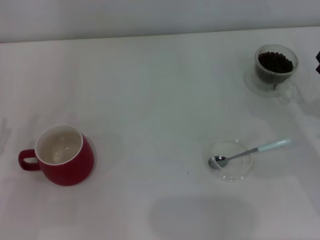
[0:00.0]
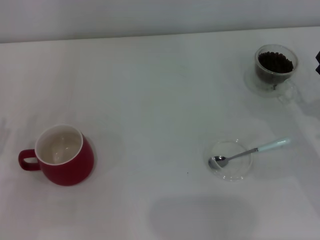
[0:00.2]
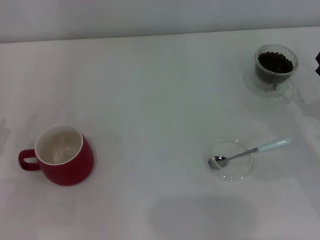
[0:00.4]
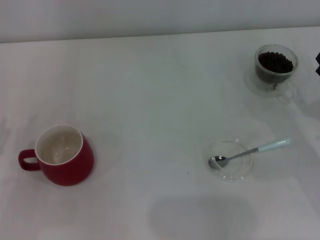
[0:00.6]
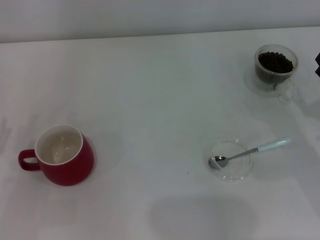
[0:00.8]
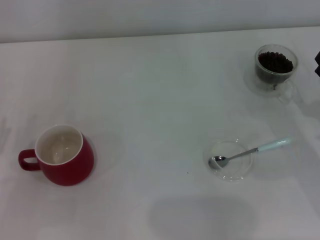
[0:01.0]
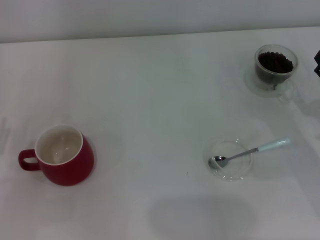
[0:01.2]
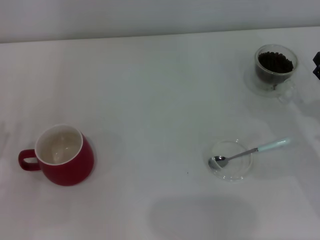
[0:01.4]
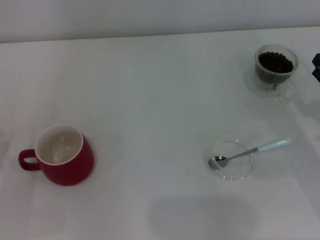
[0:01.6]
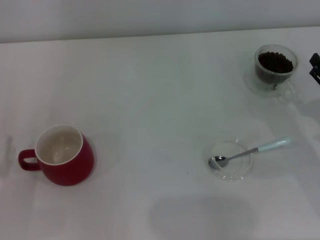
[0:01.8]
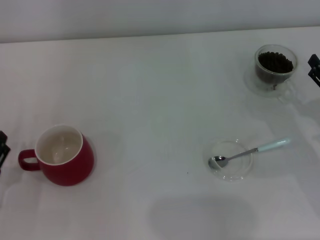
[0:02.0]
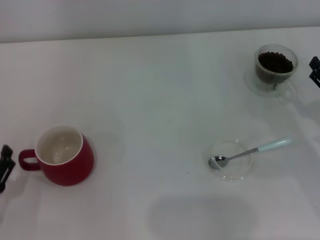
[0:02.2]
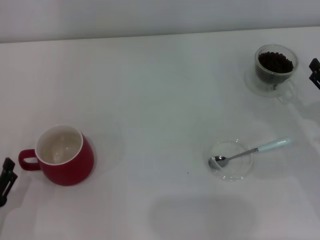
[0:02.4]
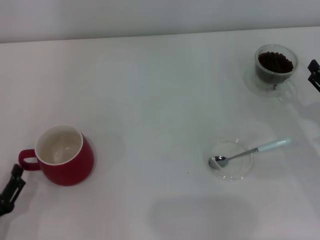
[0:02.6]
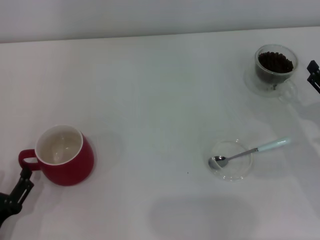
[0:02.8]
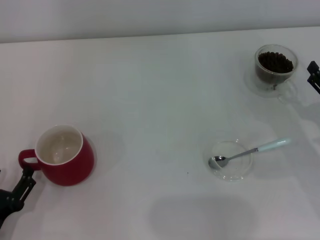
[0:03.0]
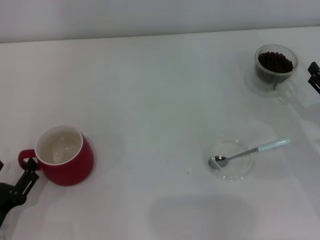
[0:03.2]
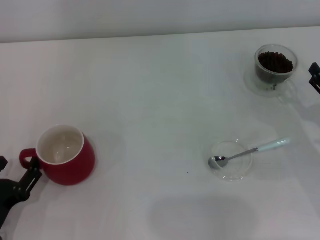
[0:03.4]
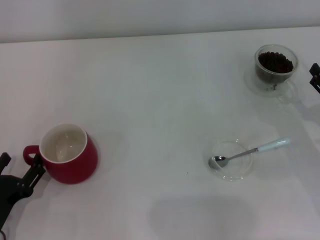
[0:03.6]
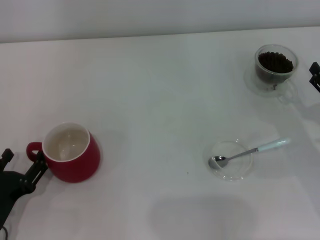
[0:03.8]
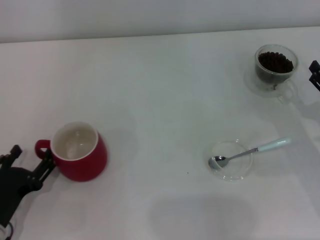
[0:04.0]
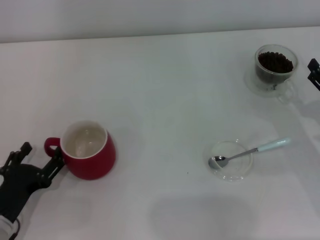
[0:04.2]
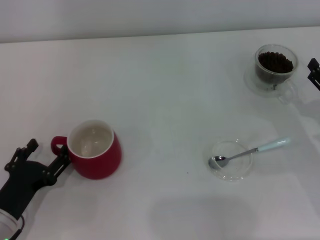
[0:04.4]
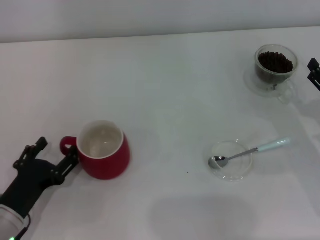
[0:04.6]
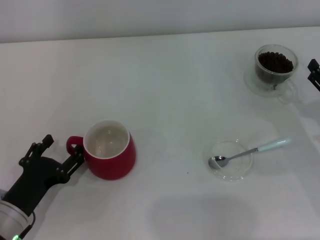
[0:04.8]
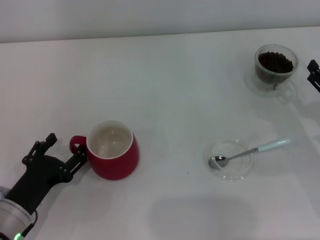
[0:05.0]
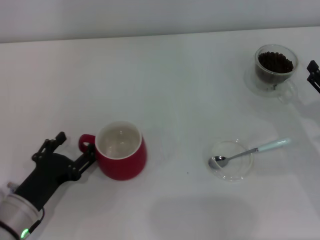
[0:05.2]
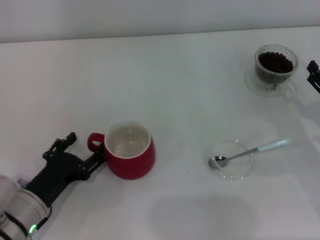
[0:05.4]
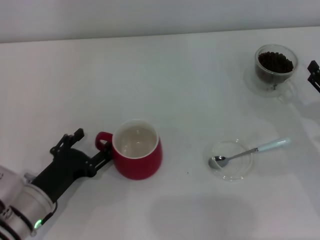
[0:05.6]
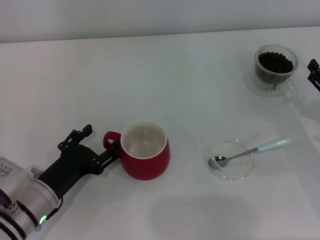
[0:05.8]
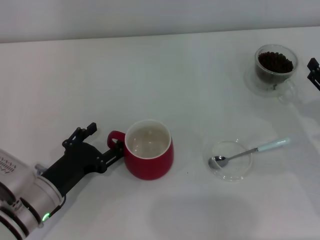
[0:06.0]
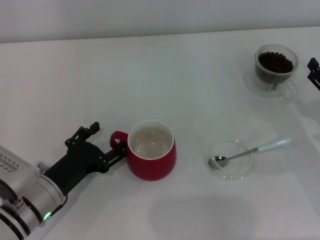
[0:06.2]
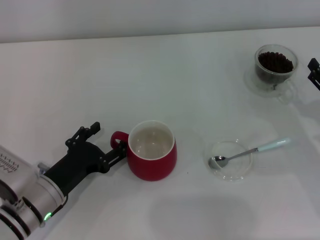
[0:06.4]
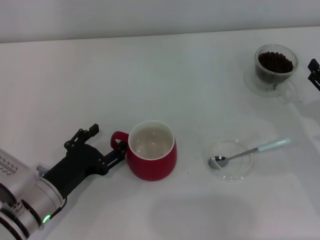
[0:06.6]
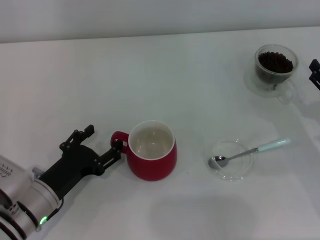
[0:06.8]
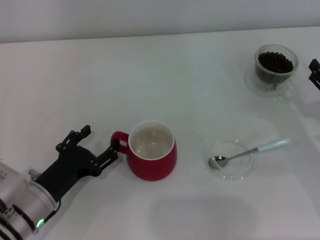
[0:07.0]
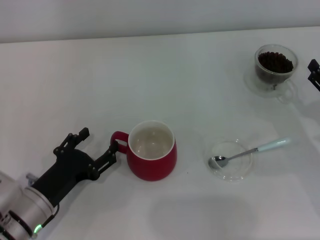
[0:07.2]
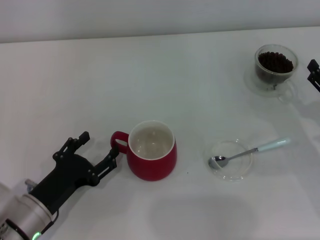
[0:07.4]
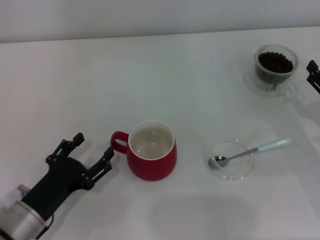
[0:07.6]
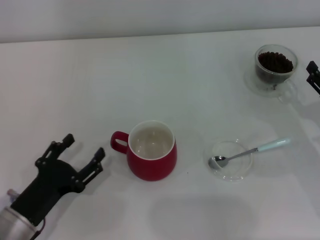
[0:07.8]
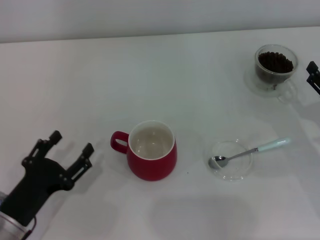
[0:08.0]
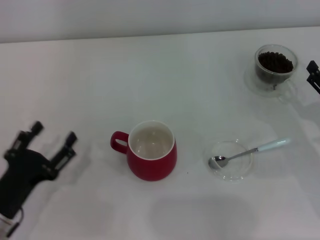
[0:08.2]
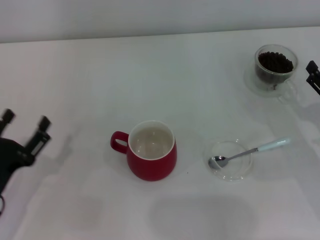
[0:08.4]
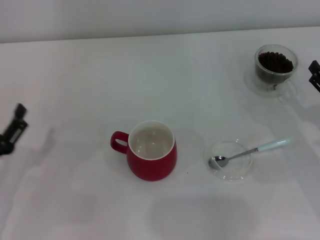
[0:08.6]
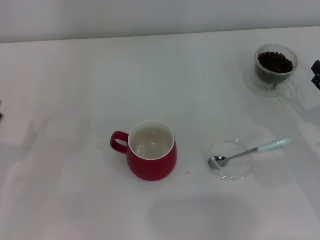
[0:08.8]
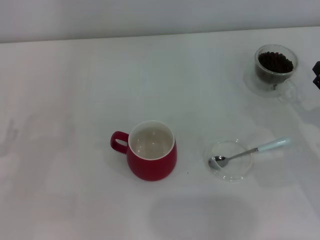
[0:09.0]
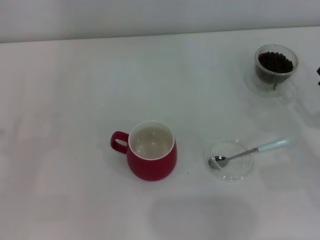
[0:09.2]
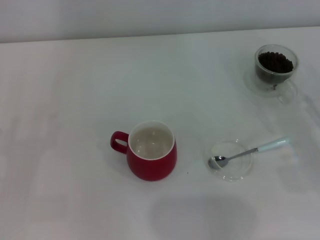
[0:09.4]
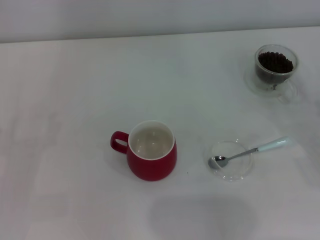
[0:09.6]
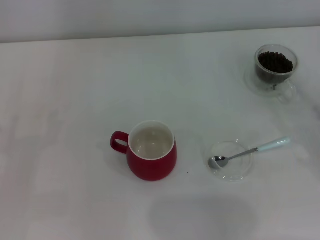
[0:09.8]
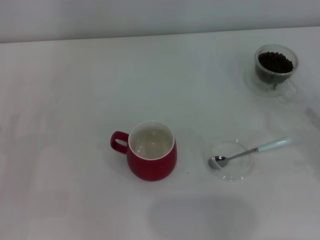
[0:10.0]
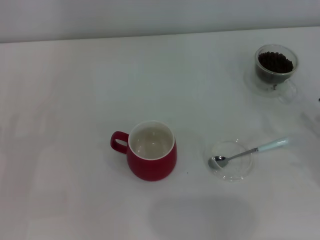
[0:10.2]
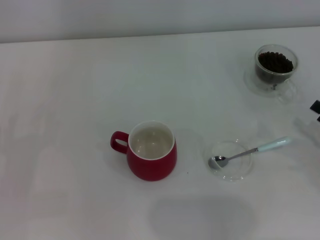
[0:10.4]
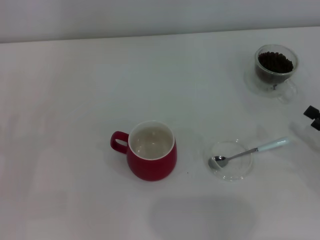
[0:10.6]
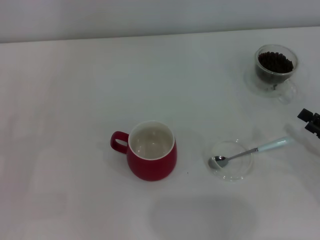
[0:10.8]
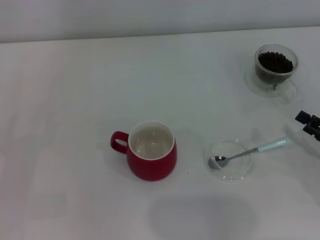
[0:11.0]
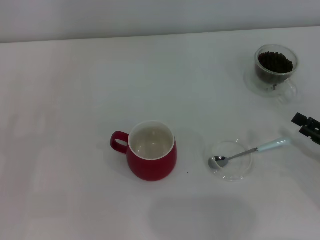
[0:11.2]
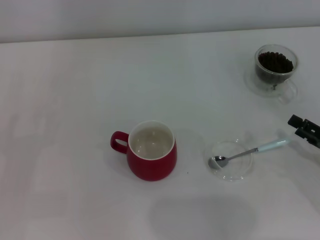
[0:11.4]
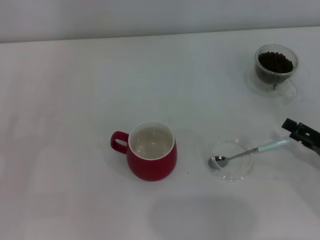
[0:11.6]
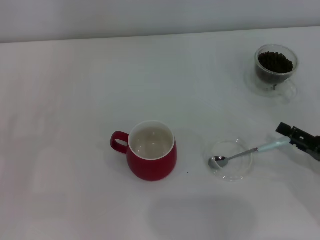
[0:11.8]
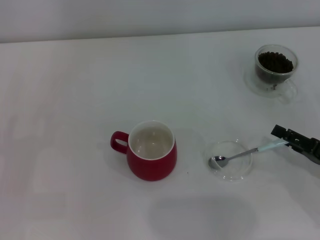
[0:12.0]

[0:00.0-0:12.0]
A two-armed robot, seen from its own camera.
Task of the whole recording: Use a blue spoon to take out the coffee beans from the glass and pour them into the red cup.
Step, 0:00.0 to 0:07.4: Move the cup to the center of view with the left gripper.
0:01.6 to 0:03.0: The left gripper goes roughly 5 cm backward.
0:03.0 to 0:04.4: The left gripper goes about 5 cm forward.
0:04.4 to 0:06.0: The left gripper shifts approximately 5 cm to the right.
0:06.0 to 0:07.6: The grippers stay close to where they were, moving slightly.
0:07.6 to 0:09.0: The left gripper travels to the left by about 10 cm.
0:09.0 to 0:10.4: The right gripper ends up approximately 5 cm from where it was.
0:10.4 to 0:12.0: There are only small adjustments of the grippers.

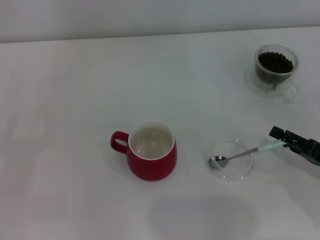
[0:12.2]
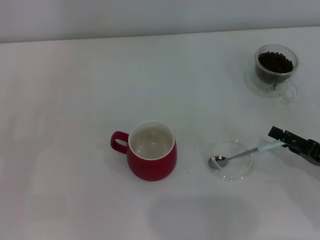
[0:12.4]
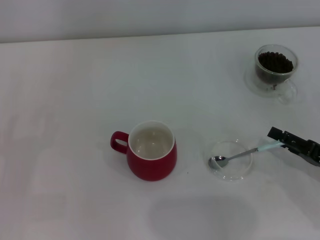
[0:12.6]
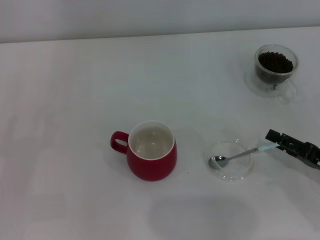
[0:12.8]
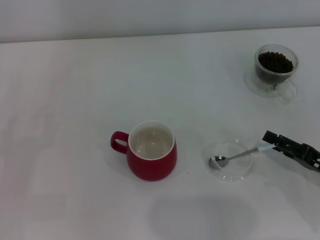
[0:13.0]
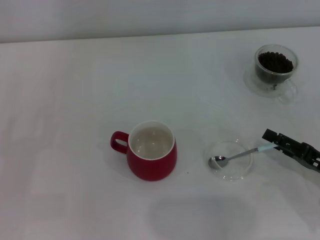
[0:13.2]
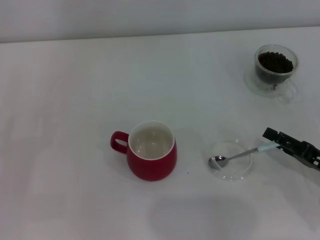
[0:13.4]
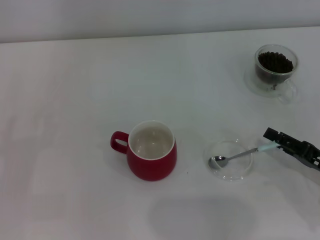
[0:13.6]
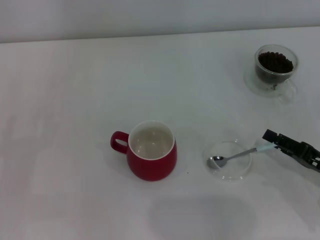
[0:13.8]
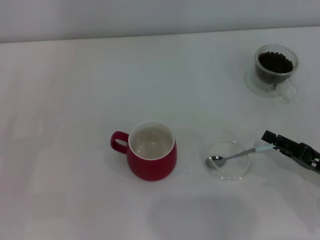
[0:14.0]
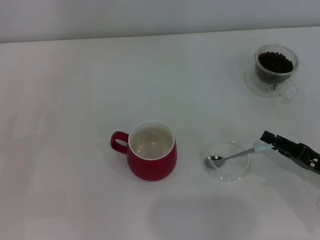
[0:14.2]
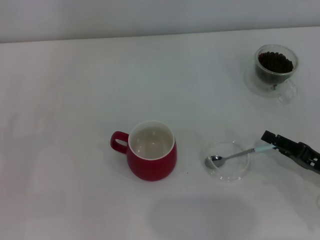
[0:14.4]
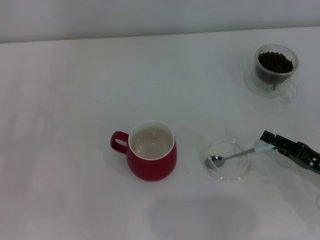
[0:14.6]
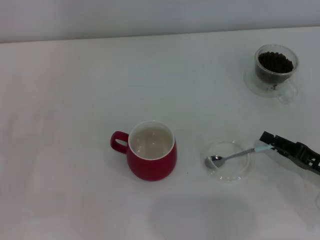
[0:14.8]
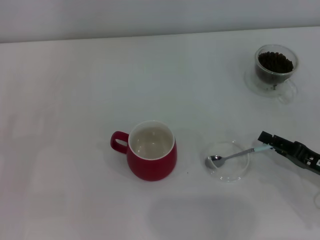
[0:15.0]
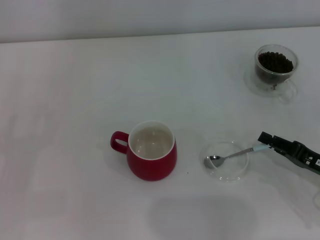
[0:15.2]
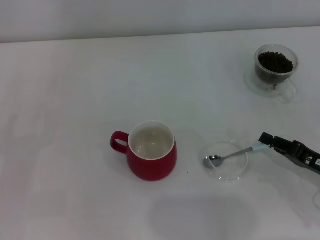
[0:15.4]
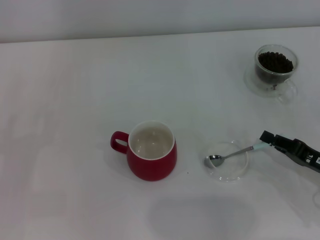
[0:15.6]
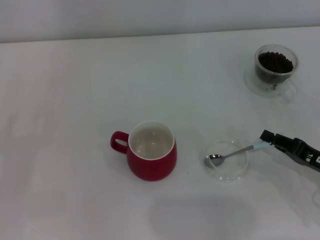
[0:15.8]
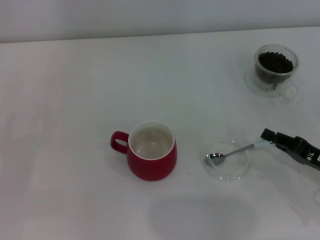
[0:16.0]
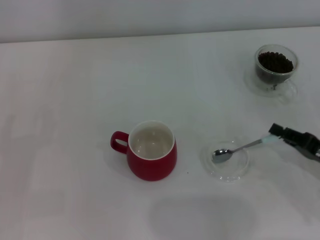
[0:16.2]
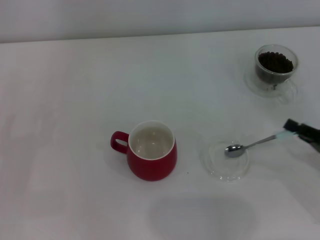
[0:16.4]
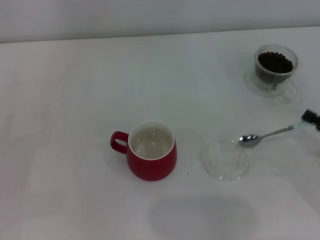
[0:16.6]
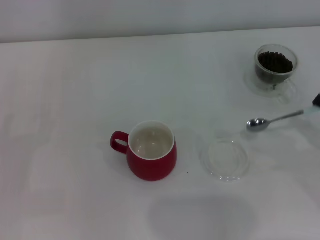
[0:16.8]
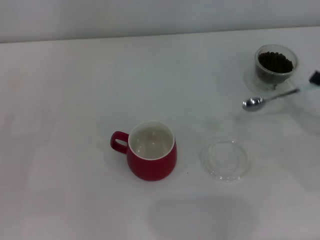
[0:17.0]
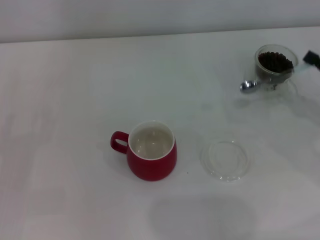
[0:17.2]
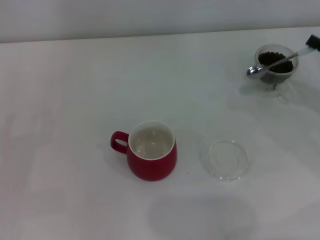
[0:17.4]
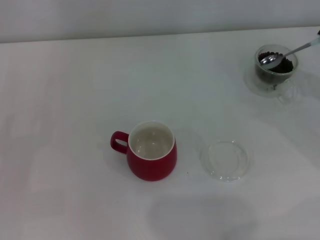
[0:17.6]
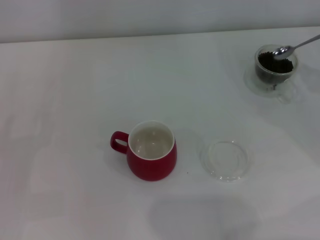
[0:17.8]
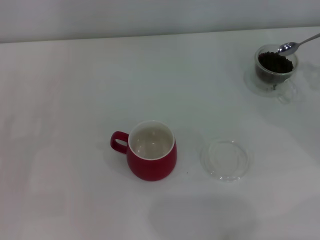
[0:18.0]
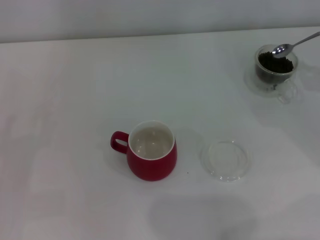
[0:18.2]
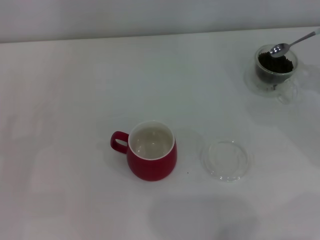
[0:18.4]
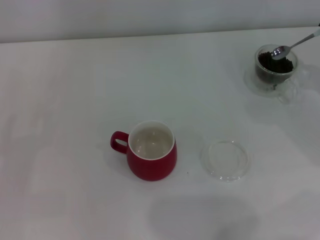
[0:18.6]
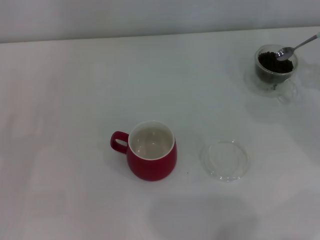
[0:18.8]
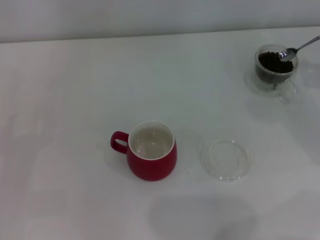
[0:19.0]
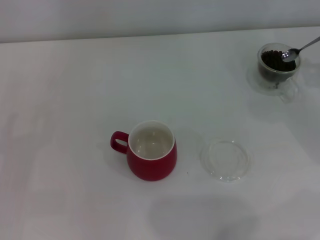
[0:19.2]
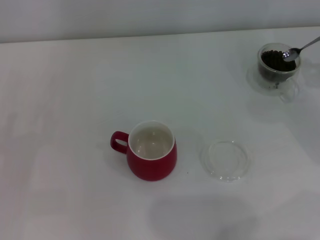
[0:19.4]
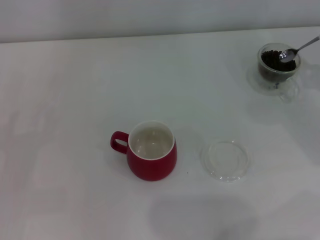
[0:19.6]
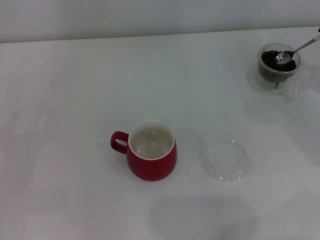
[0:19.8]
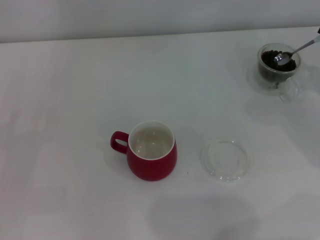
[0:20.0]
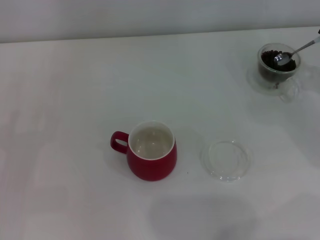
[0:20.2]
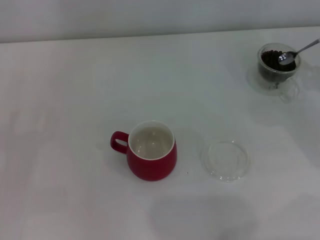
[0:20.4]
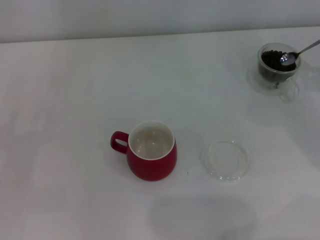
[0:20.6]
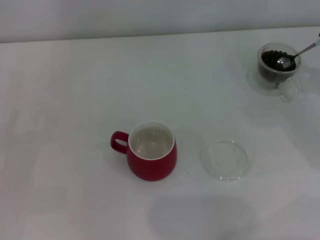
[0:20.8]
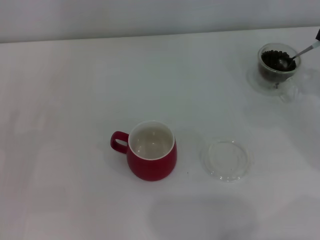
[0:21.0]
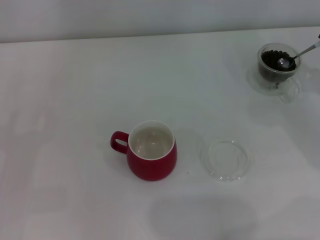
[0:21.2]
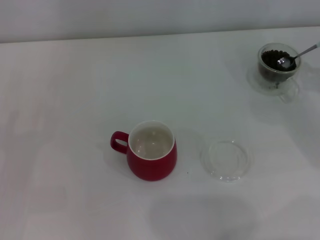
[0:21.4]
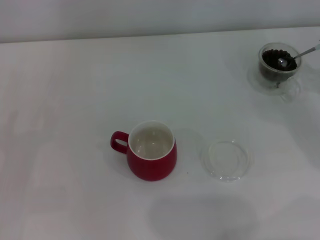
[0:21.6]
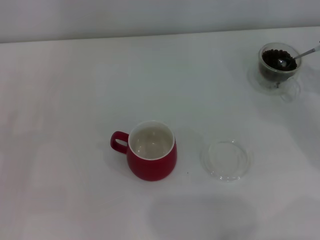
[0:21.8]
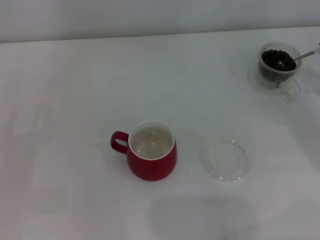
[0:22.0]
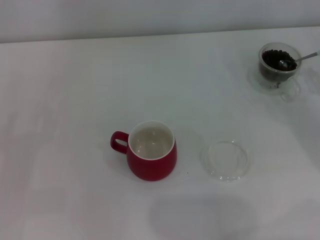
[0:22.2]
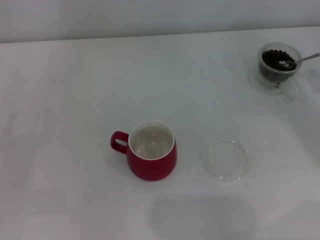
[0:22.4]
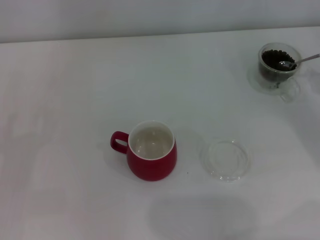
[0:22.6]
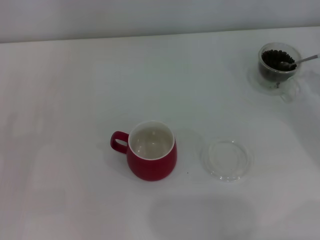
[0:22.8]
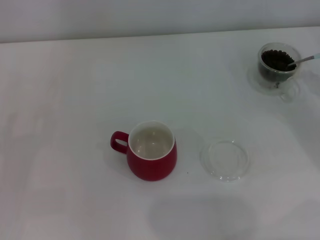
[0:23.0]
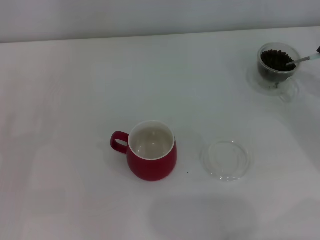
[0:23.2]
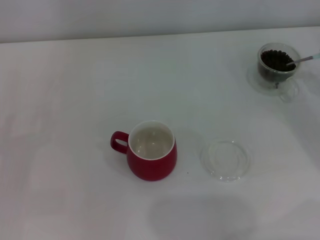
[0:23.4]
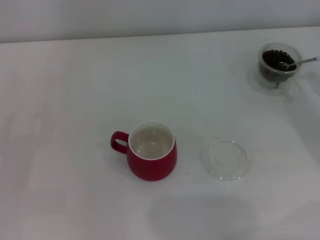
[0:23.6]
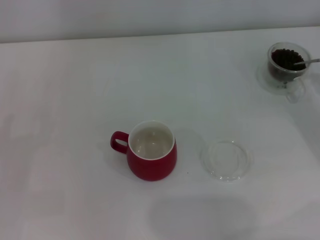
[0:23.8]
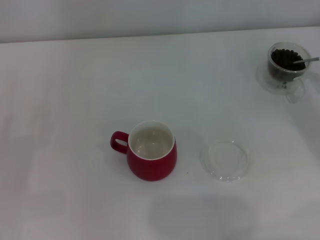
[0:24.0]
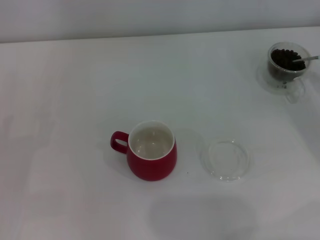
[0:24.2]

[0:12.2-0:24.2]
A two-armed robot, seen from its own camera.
Task of the whole recording: Use a blue spoon to take out the coffee beans from the glass and pour them into the red cup.
Step, 0:12.2 to 0:16.4: Pick up the spoon with the right gripper.
0:12.2 to 0:13.8: There are only small adjustments of the grippers.
0:13.8 to 0:15.2: The right gripper closes its fingers.
0:15.2 to 0:16.6: The right gripper shifts by some 5 cm, and closes its fingers.
0:16.6 to 0:18.2: The right gripper is displaced forward and upward by about 15 cm.
0:18.2 to 0:19.8: The grippers move only a little.
0:19.8 to 0:21.2: Both grippers stay put.
0:22.6 to 0:24.2: There are only small adjustments of the grippers.
